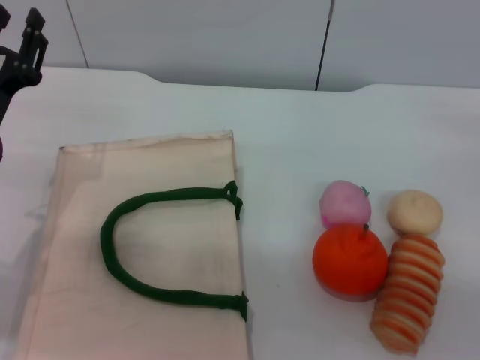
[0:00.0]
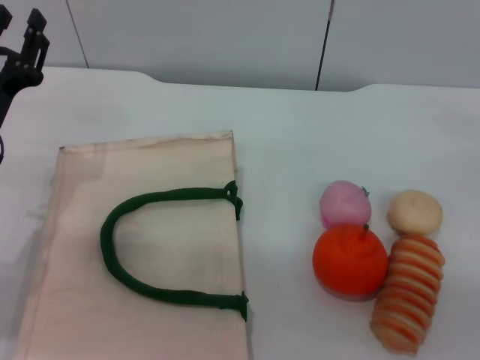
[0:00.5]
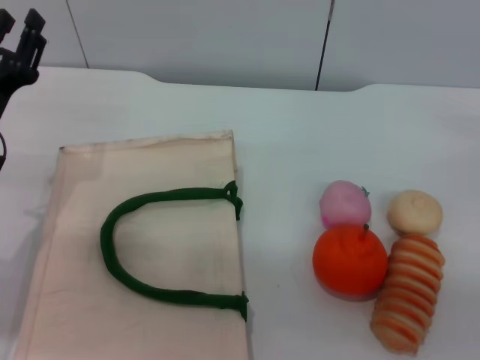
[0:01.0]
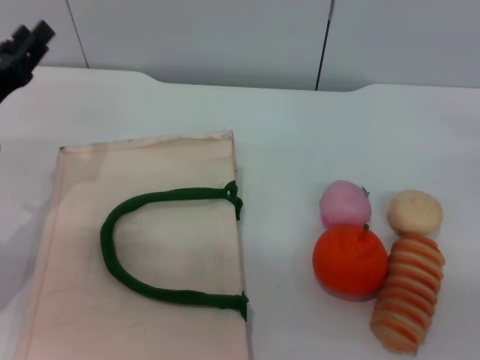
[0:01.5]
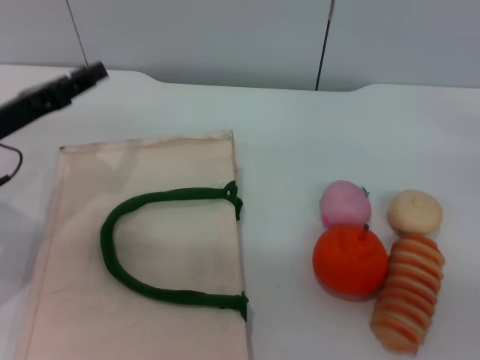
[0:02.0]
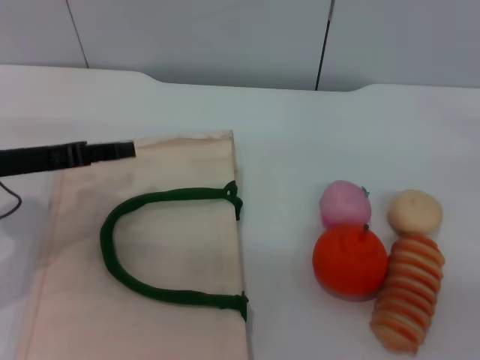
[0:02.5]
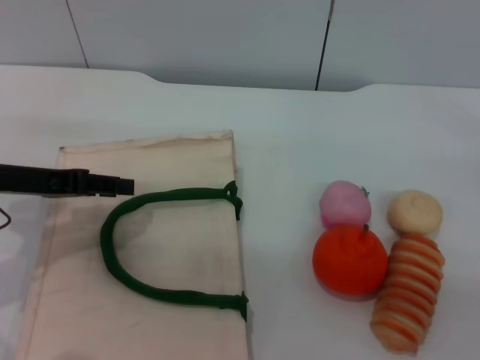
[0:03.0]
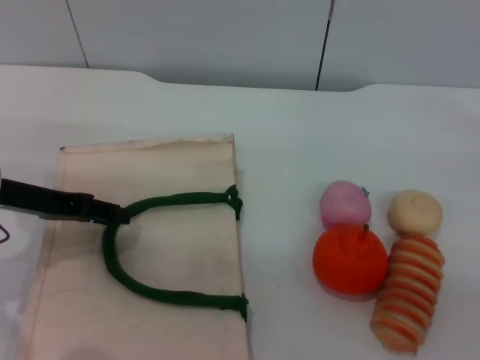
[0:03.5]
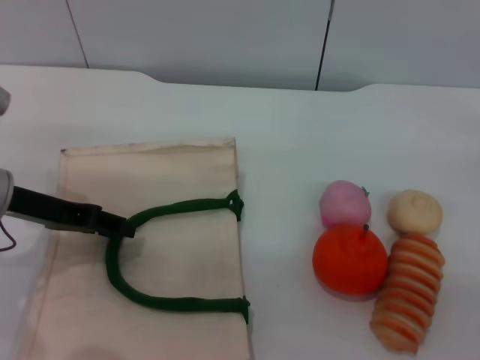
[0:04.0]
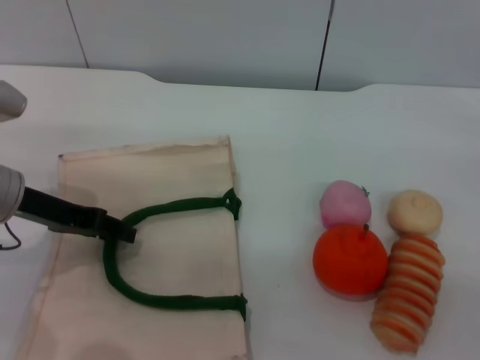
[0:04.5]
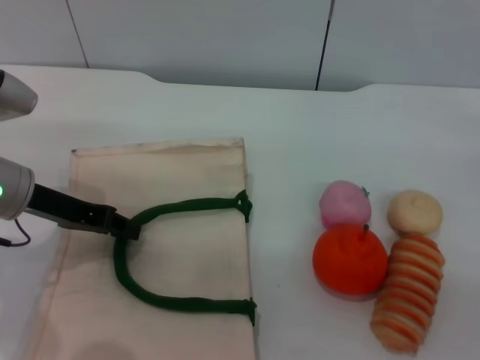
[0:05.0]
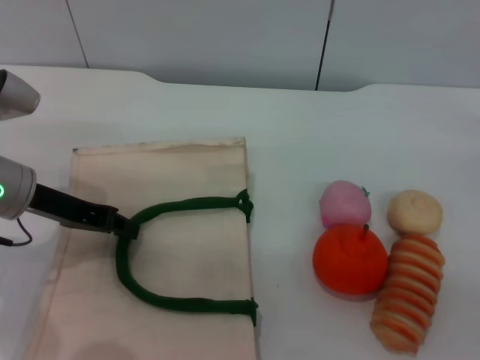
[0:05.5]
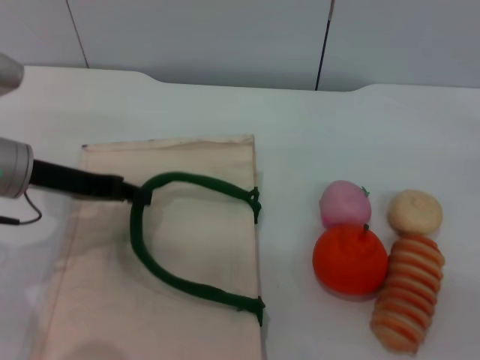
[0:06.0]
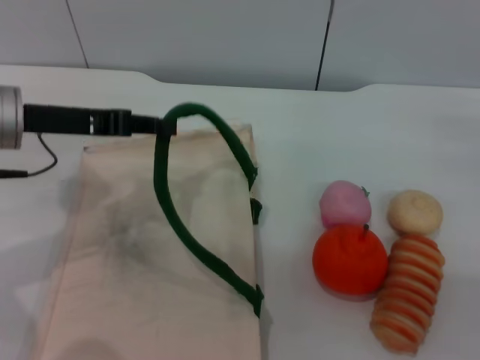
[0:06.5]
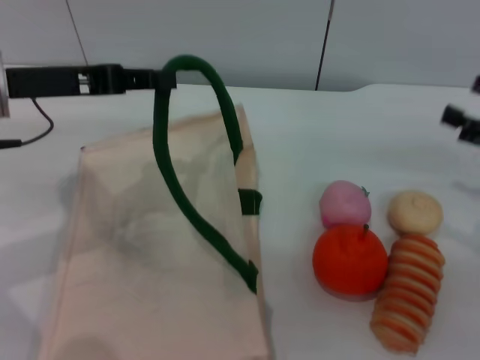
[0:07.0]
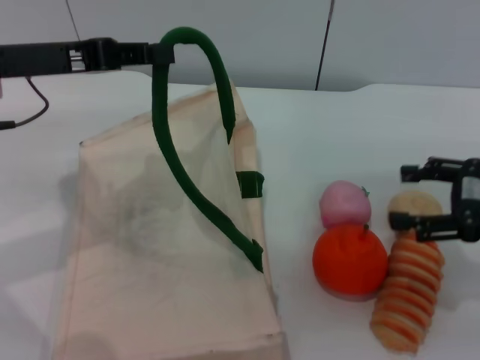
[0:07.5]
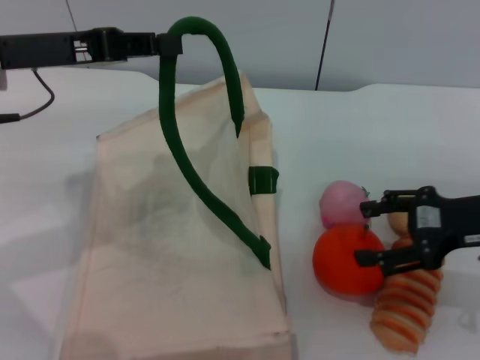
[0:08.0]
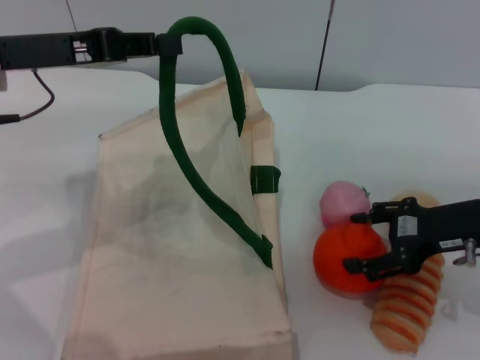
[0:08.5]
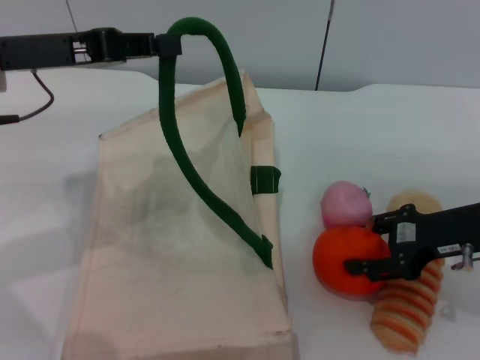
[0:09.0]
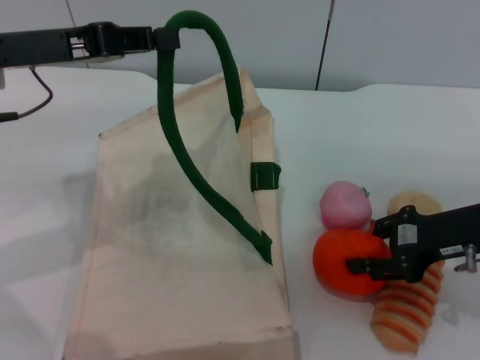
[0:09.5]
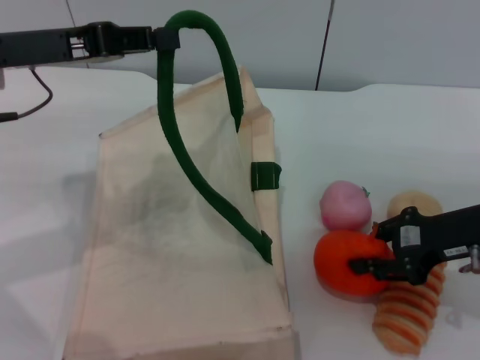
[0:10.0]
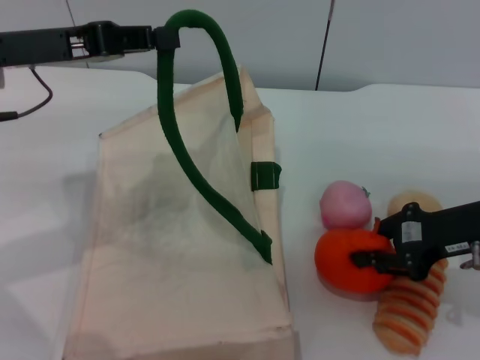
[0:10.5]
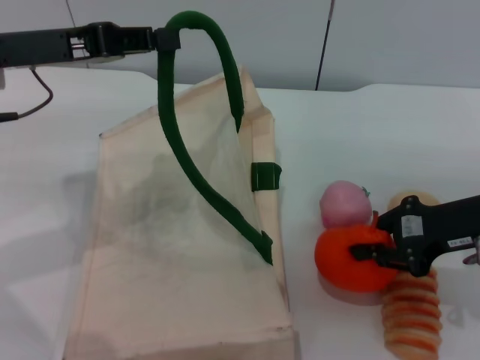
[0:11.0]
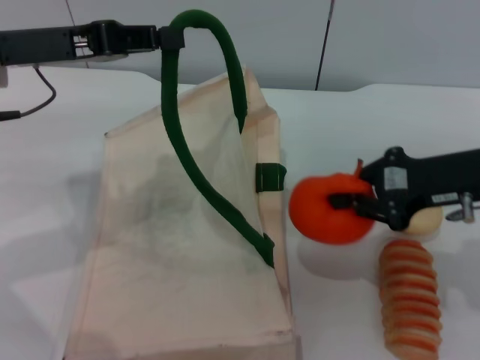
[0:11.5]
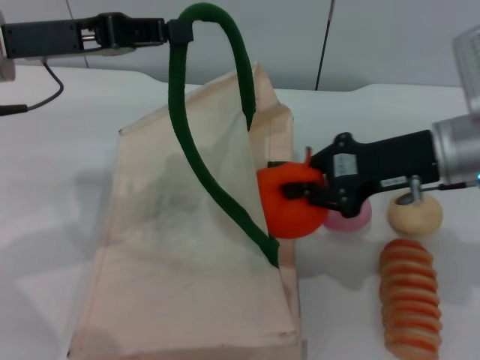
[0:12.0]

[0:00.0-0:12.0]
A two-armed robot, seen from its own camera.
Task of the whole recording: pick up the orange from the table and place it in the white handbag.
Step, 0:00.0 to 0:06.5: Lift the woven bag with the left gripper to open it.
Step, 0:07.0 to 0:11.0: Pick up the orange with the right gripper.
0:04.0 to 0:06.0: The left gripper closes its fingers.
0:06.0 to 0:08.0: The right gripper is displaced to the left by approximately 10 cm; the left gripper heads upward, covering approximately 10 cm.
0:08.0 to 0:10.0: The right gripper closes its fingers.
0:10.0 to 0:12.0: The right gripper travels to the left by about 5 cm, and closes its fingers.

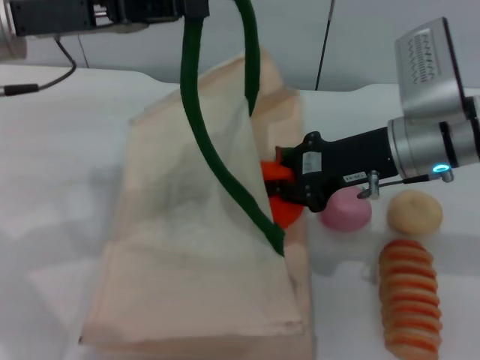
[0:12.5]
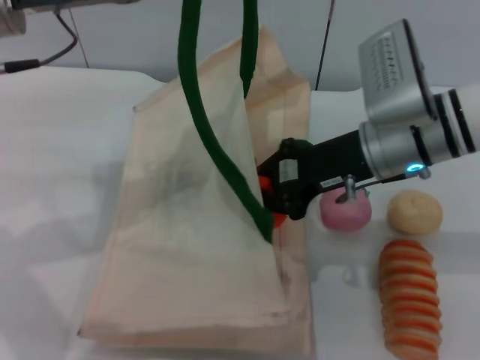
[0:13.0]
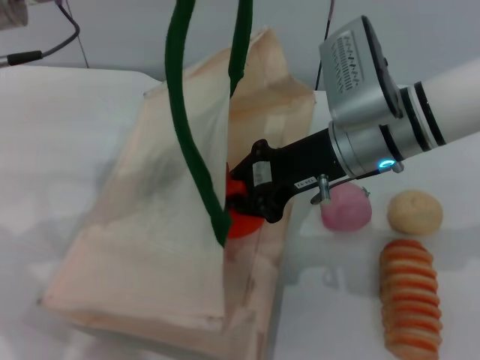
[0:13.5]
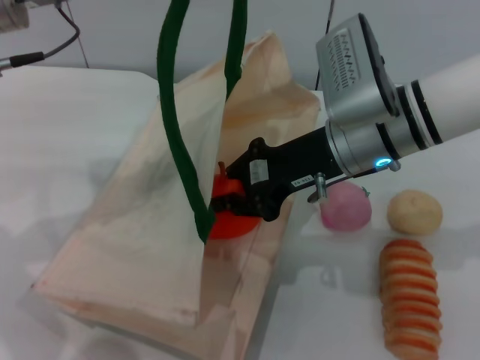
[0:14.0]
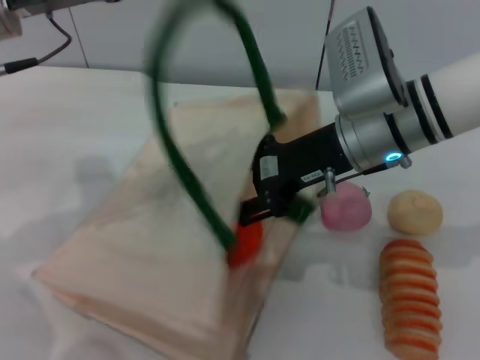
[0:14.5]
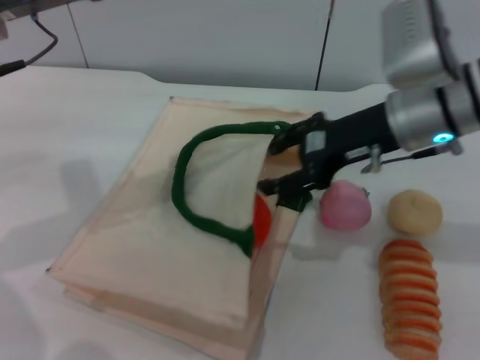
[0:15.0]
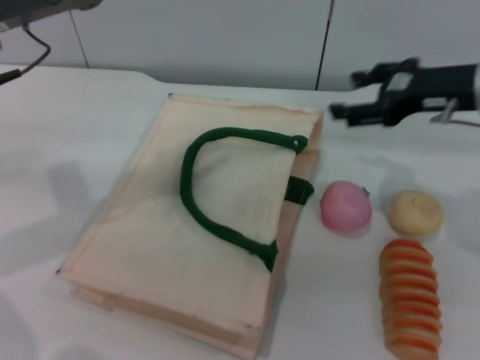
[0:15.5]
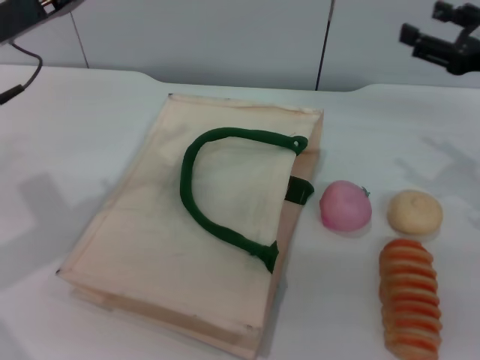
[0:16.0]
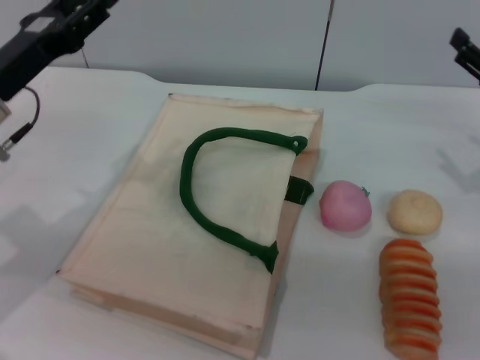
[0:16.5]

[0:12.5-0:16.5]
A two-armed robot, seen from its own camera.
Task of the whole recording: pick up the orange from the table and place it in the white handbag.
Step, 0:12.5 to 0:15.0: Place the orange into the woven bag with the right gripper.
Step, 0:15.5 to 0:16.0: Lower the woven bag with the left gripper to close it.
0:12.5 to 0:14.5: The right gripper opens.
0:14.5 to 0:16.5: The right gripper travels to the right by some 20 cm, and opens. The left gripper is displaced downward by approximately 10 cm, and opens its fingers.
